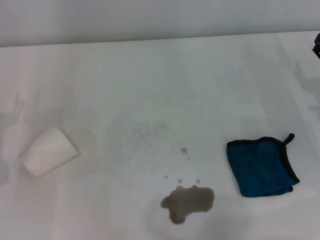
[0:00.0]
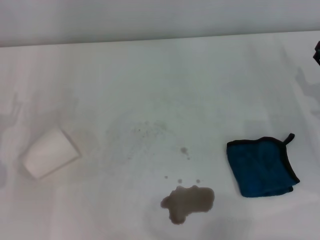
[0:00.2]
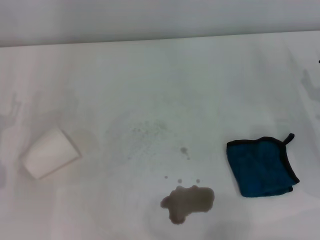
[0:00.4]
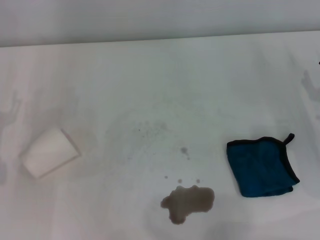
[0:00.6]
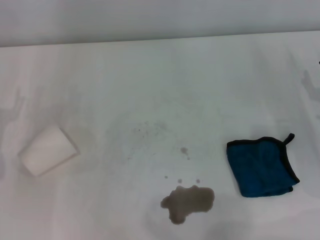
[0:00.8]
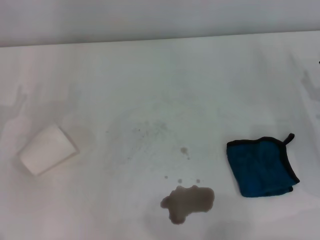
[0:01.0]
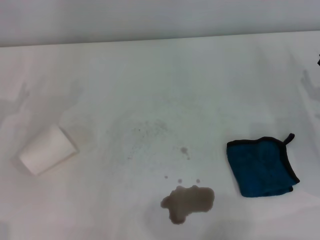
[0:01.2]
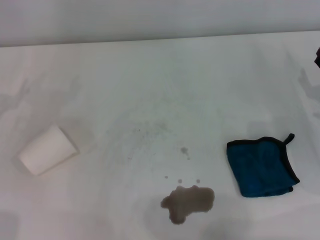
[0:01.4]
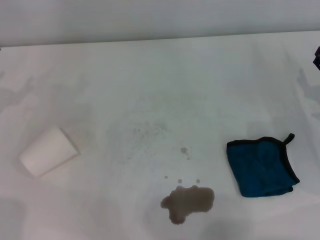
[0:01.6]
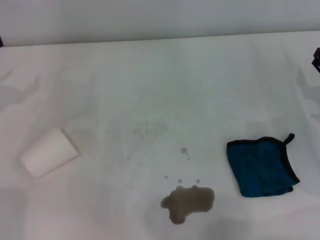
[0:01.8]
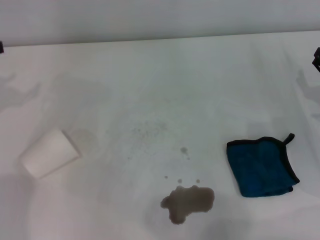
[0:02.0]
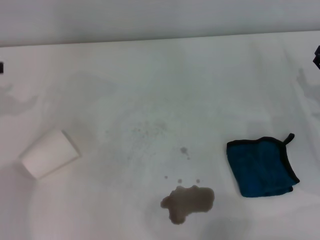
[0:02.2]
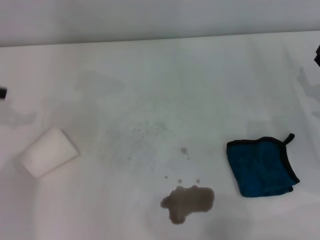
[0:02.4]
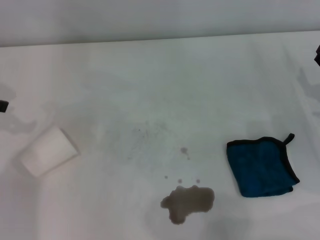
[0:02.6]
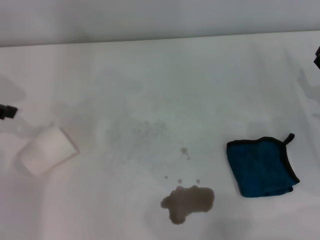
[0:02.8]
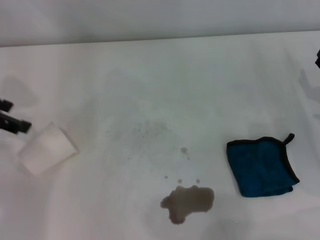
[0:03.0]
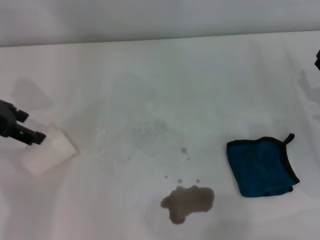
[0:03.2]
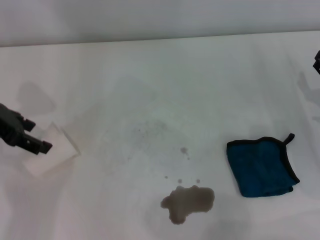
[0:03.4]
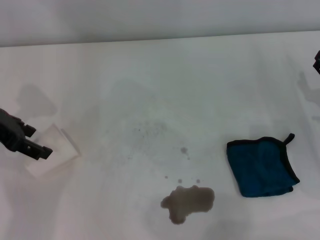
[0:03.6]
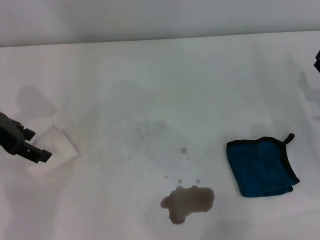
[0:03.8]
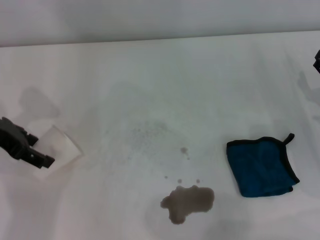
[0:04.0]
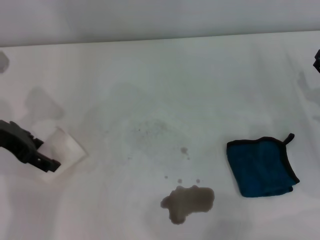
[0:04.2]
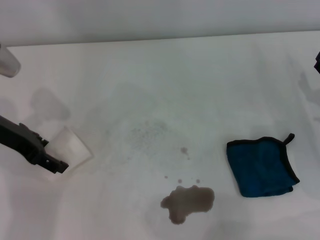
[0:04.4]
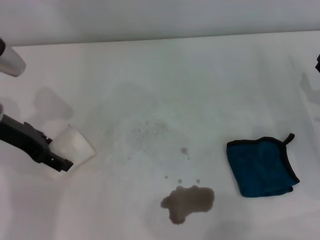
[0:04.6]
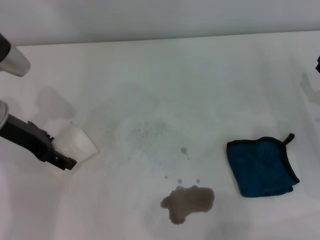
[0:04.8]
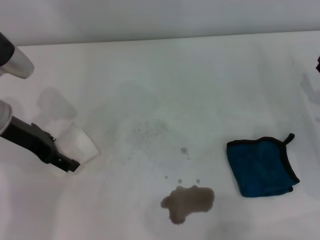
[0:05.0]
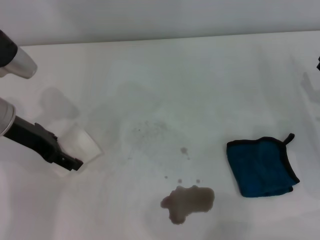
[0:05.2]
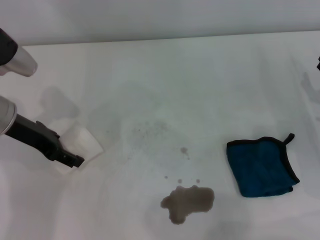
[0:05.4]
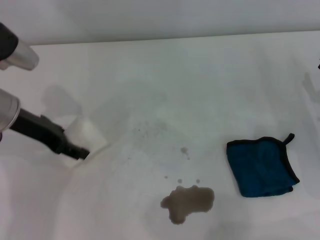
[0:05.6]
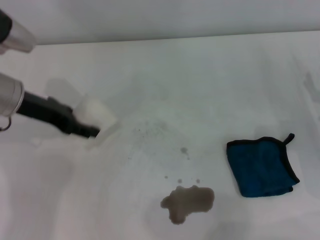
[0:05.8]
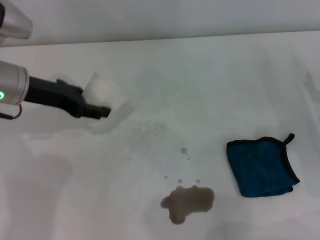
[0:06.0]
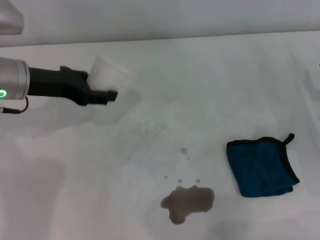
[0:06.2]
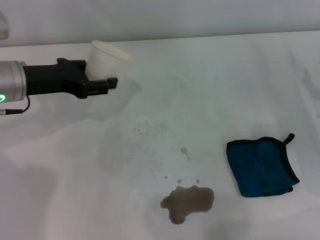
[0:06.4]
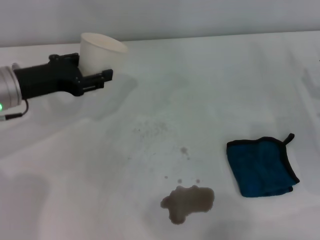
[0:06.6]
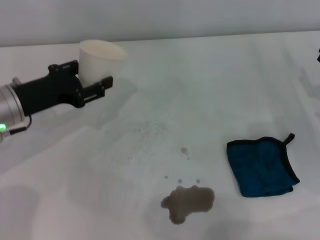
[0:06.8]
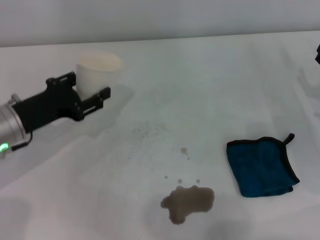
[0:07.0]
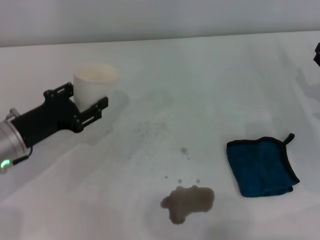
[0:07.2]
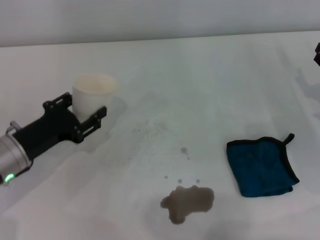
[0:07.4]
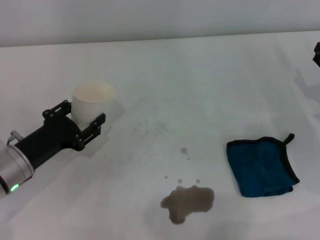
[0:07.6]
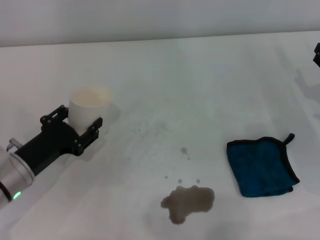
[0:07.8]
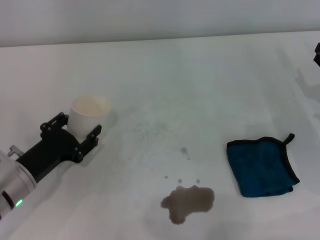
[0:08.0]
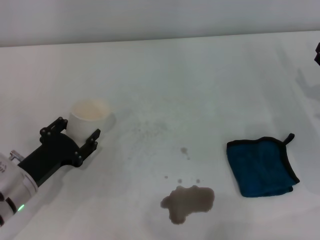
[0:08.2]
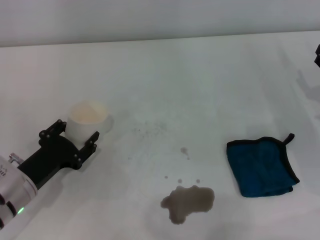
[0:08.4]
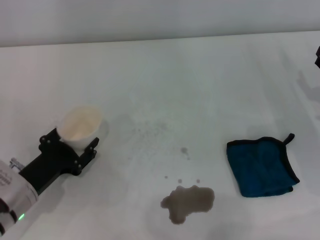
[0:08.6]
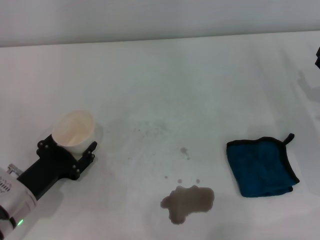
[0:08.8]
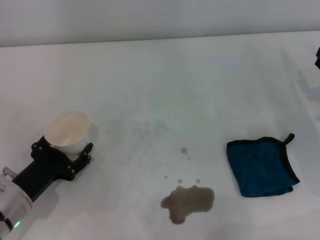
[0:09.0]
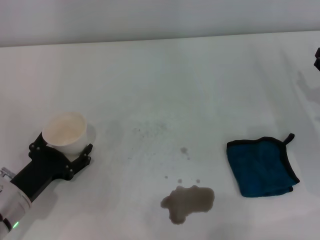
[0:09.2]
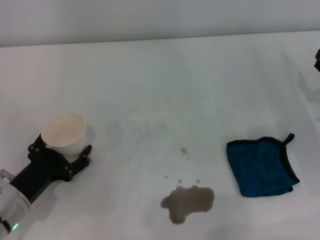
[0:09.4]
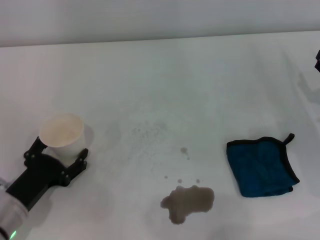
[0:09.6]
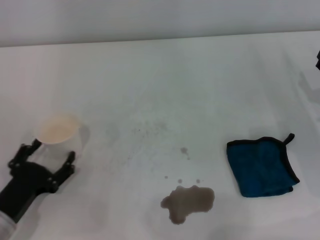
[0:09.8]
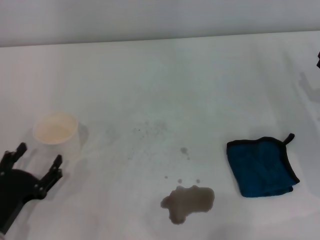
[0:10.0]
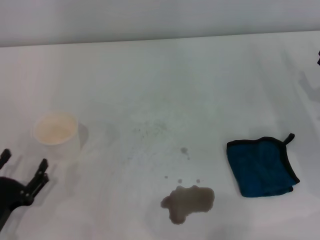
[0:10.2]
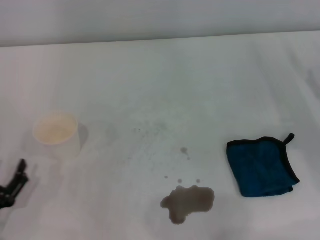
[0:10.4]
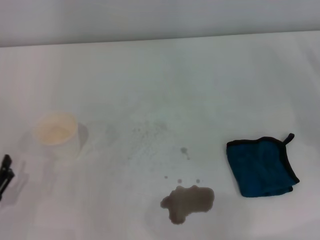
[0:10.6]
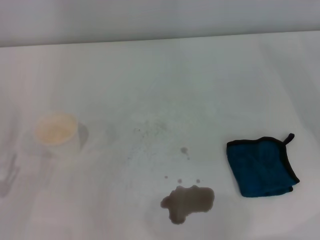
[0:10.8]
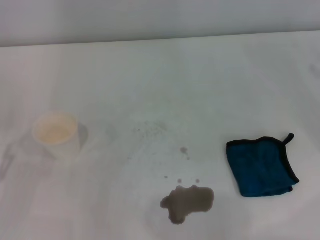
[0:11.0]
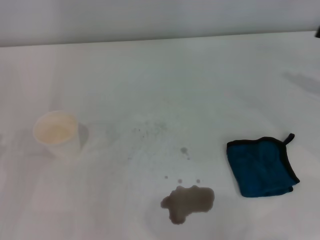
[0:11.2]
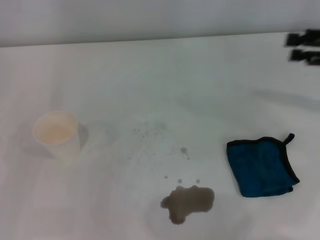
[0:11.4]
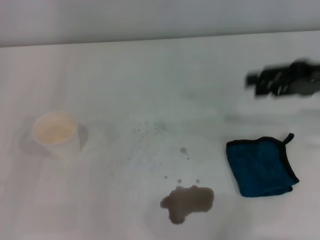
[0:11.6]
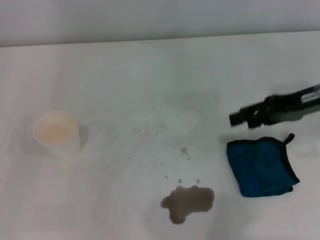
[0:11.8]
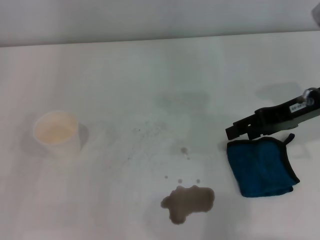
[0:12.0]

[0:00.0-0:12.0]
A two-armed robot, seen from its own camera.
Step, 0:00.0 to 0:05.2: Grasp the paper cup with the left gripper.
Step, 0:05.4 to 0:09.6: Stand the paper cup upright with the left gripper.
0:01.6 to 0:03.0: The left gripper is displaced upward by roughly 10 cm.
0:03.0 to 0:04.4: The left gripper shifts roughly 10 cm downward and to the right.
0:04.4 to 0:06.0: The left gripper closes.
0:06.0 to 0:07.6: The left gripper heads downward and backward, covering some 15 cm.
0:07.6 to 0:09.0: The left gripper ends up approximately 5 cm from where it was.
0:09.0 to 0:10.4: The left gripper travels backward and to the left by approximately 10 cm, and opens up.
0:10.4 to 0:12.0: The left gripper heads upward, to the left and forward, covering roughly 10 cm; the right gripper is displaced upward and to the left by approximately 20 cm.

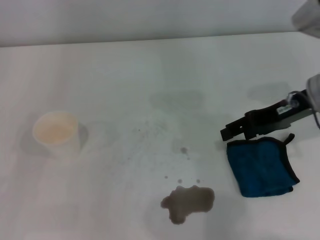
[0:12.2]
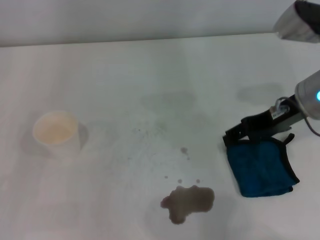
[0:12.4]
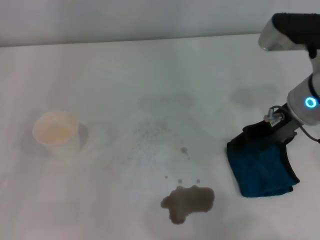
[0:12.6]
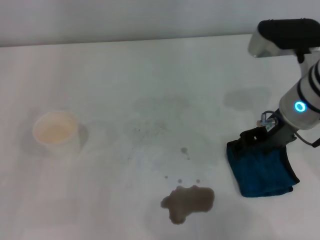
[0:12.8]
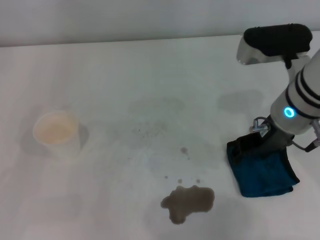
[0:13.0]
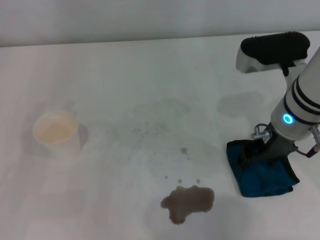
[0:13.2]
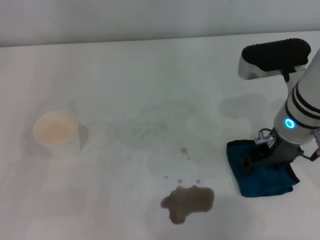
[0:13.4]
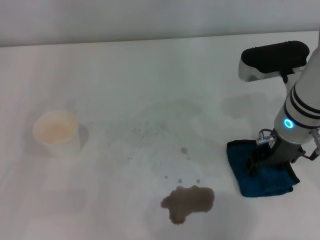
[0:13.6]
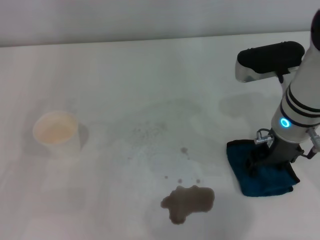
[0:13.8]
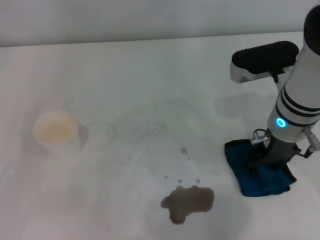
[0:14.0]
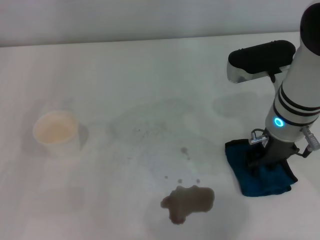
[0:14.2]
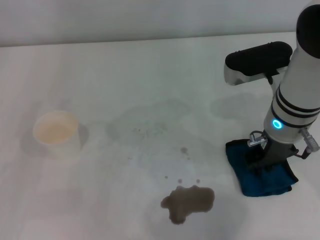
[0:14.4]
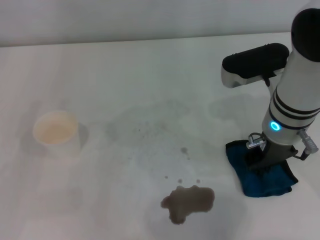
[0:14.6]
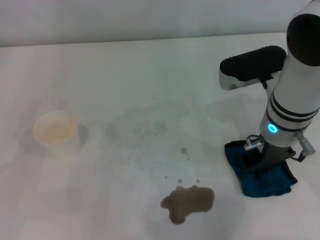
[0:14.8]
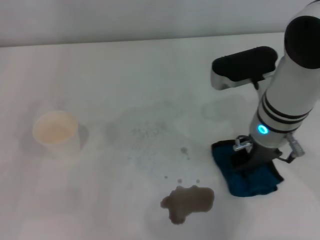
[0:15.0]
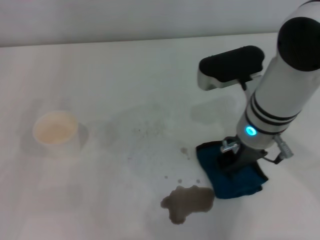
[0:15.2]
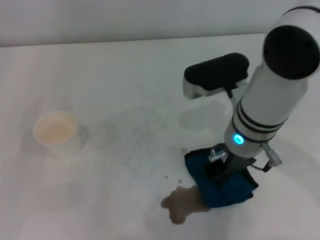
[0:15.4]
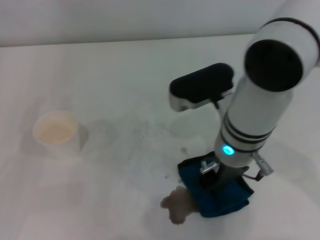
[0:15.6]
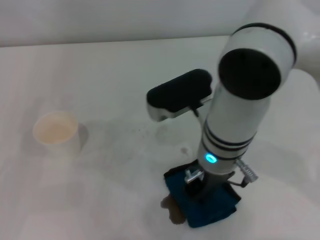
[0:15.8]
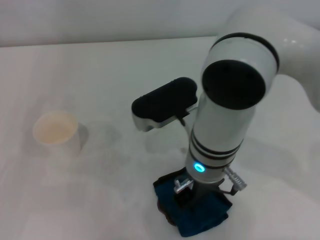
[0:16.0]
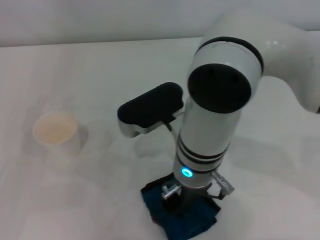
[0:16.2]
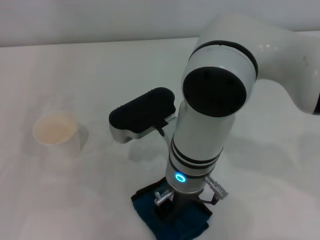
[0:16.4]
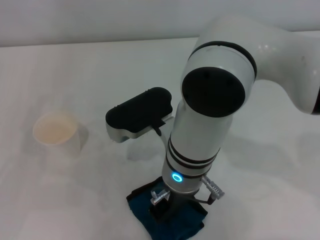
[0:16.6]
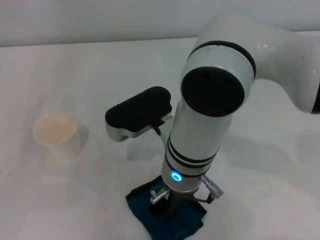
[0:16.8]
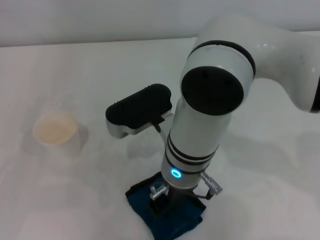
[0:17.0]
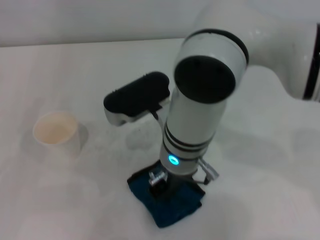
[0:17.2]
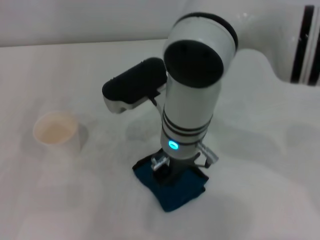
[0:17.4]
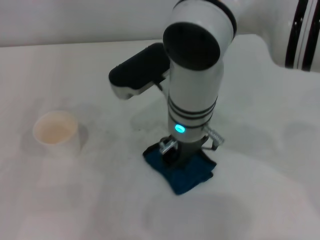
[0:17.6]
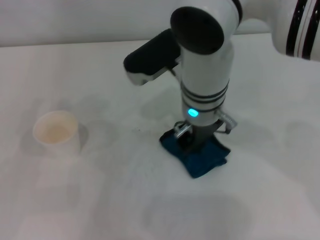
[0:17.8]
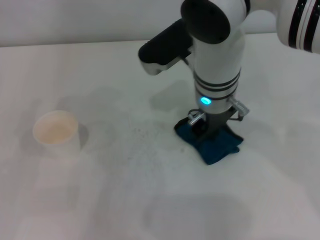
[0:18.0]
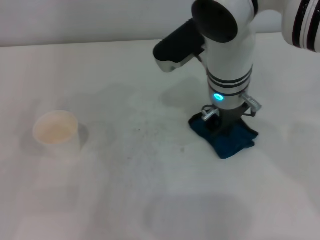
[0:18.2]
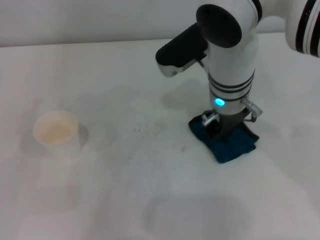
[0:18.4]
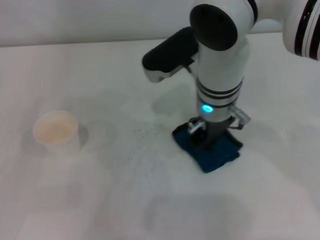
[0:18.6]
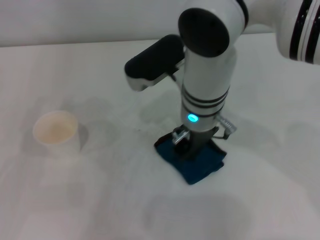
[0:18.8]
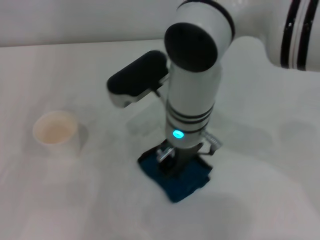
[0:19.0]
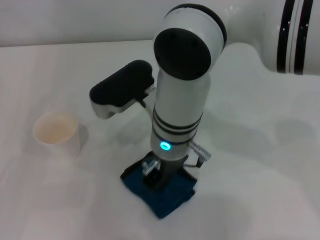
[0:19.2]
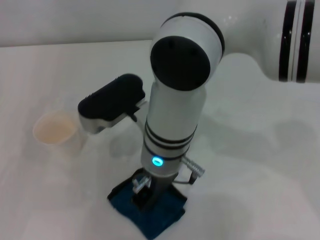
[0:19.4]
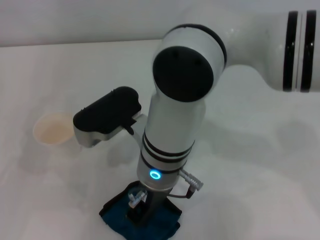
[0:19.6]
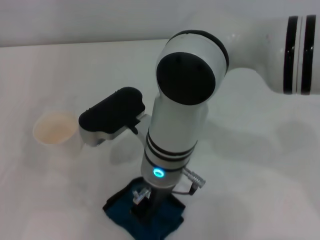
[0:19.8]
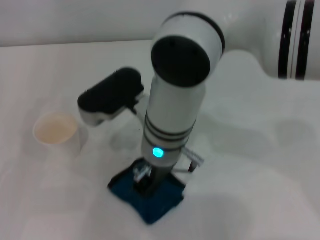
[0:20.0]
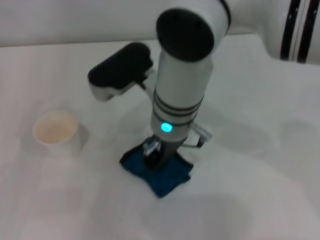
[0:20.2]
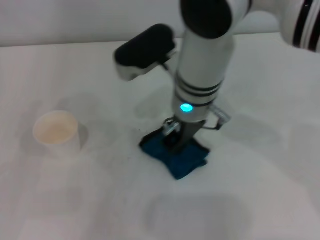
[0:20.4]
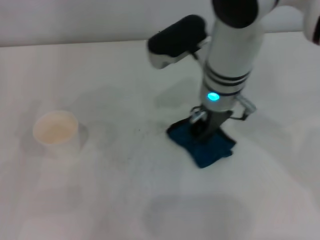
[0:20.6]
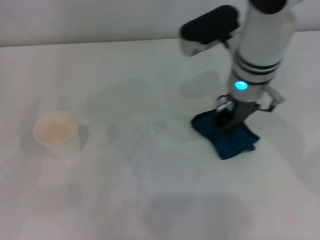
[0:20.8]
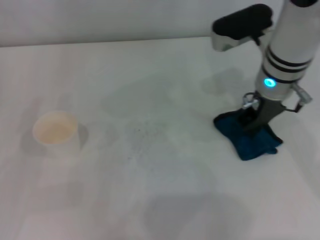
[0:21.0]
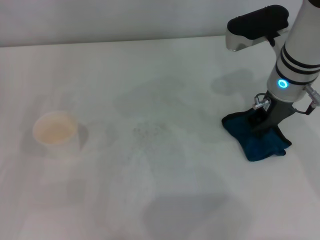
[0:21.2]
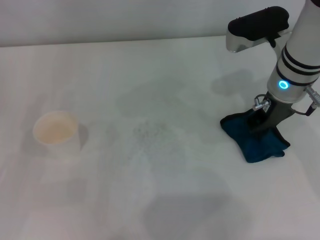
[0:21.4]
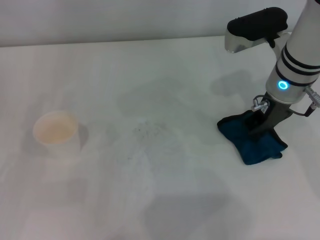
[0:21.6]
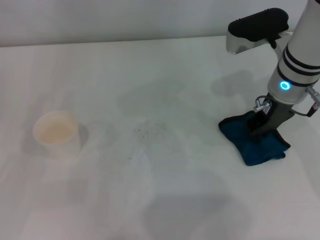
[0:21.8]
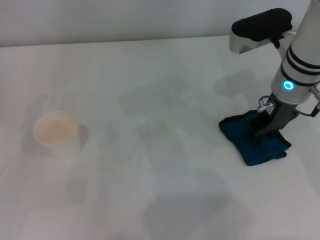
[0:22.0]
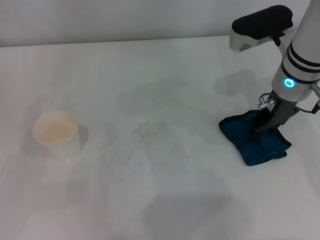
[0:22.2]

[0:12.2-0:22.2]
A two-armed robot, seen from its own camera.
Step, 0:12.2 to 0:14.6: Grasp the rag with the right gripper.
Step, 0:14.8 to 0:20.8: Wipe the stains off the table with the right gripper.
Step, 0:21.0 to 0:21.6: Place the rag on the table with the right gripper.
0:12.2 to 0:13.6: The right gripper heads to the left, covering roughly 5 cm.
0:13.6 to 0:15.0: The right gripper closes.
0:15.0 to 0:16.4: The right gripper moves to the left, approximately 10 cm.
0:16.4 to 0:18.0: The right gripper goes approximately 10 cm forward.
0:18.0 to 0:19.4: The right gripper shifts roughly 10 cm to the left and backward.
0:19.4 to 0:20.8: The right gripper shifts approximately 15 cm to the right and forward.
0:20.8 to 0:22.2: The right gripper travels to the right by about 5 cm.
